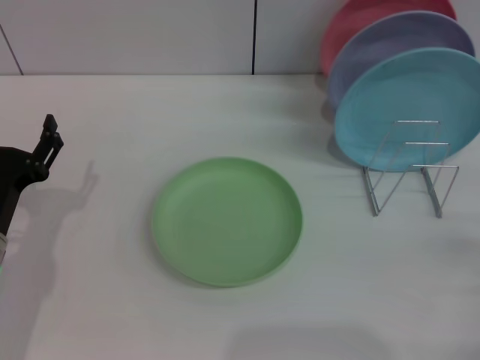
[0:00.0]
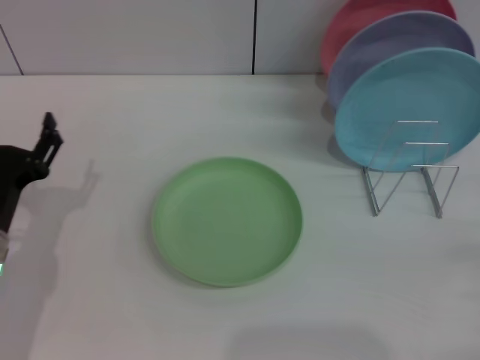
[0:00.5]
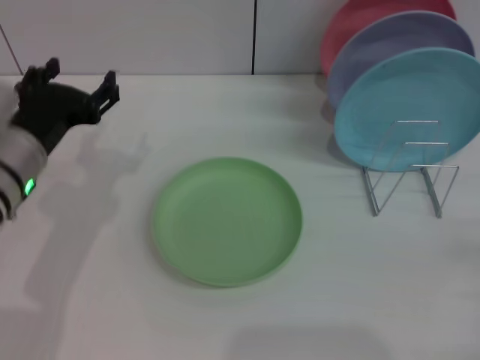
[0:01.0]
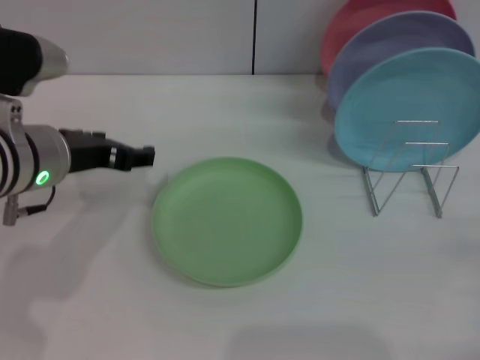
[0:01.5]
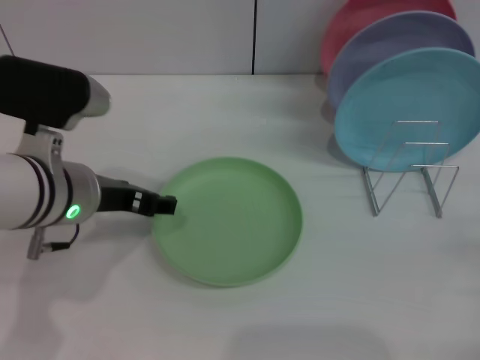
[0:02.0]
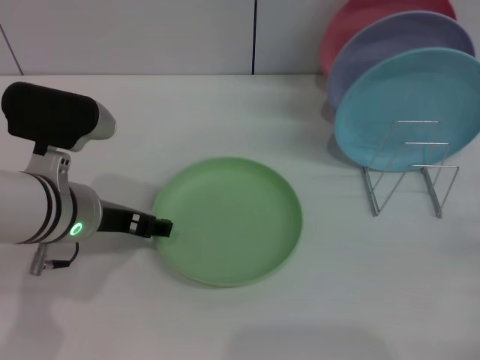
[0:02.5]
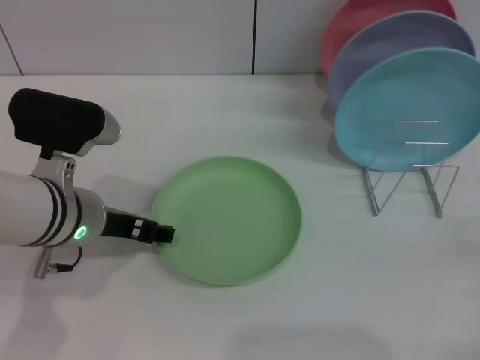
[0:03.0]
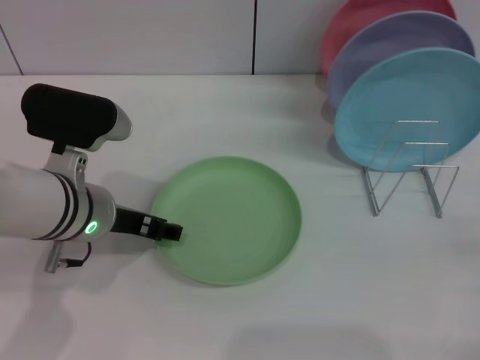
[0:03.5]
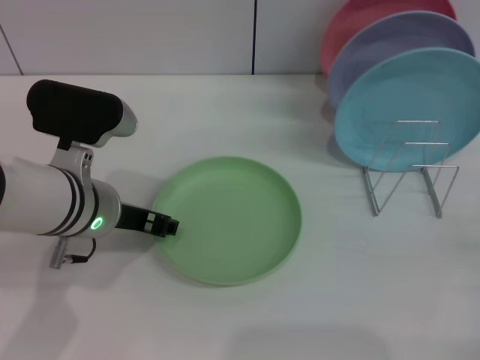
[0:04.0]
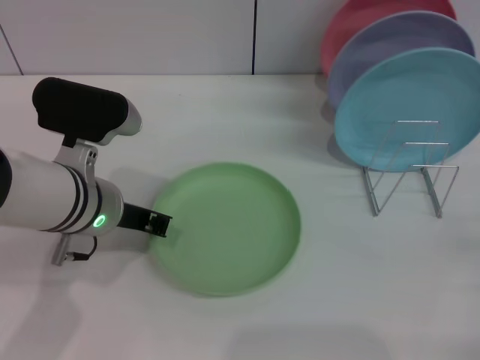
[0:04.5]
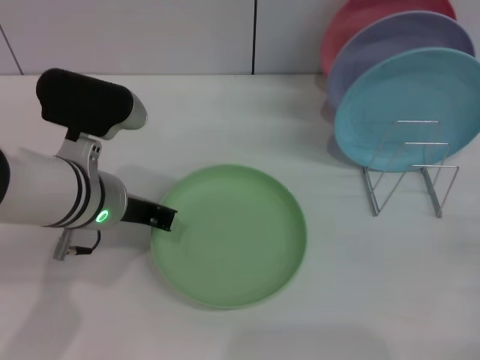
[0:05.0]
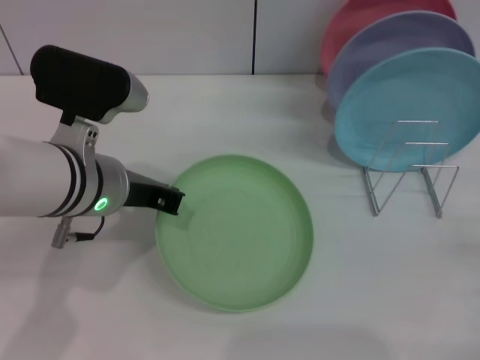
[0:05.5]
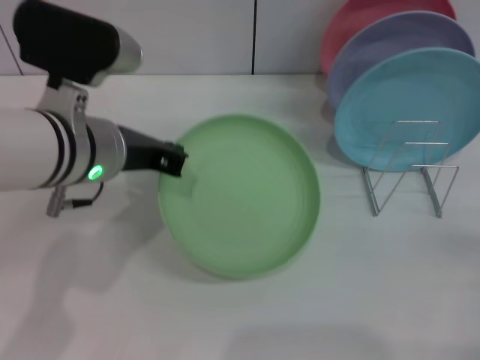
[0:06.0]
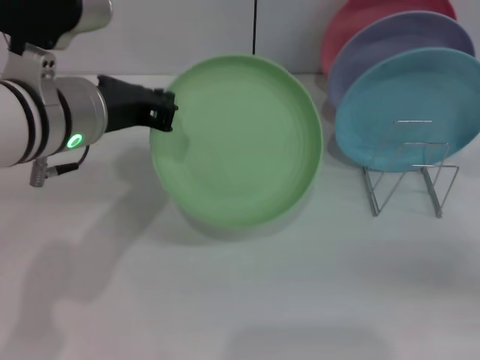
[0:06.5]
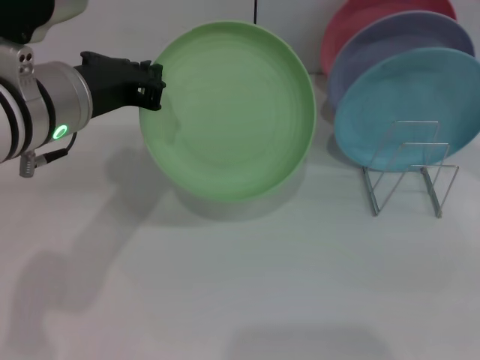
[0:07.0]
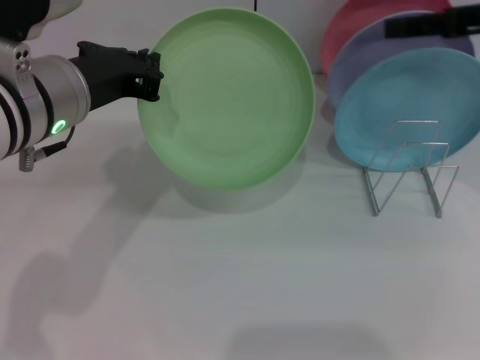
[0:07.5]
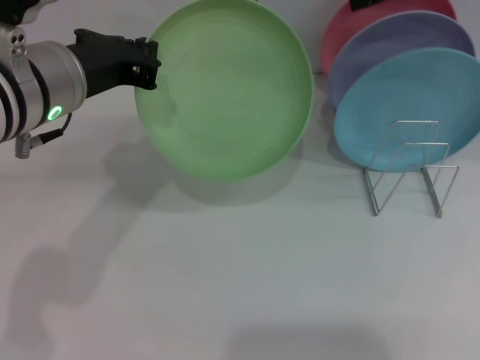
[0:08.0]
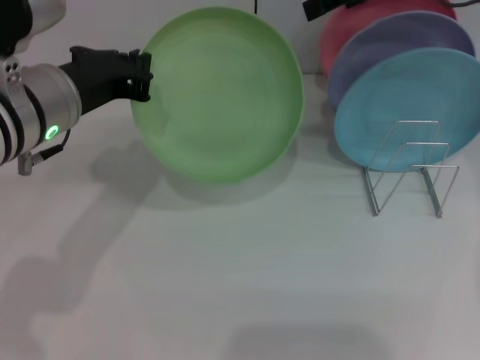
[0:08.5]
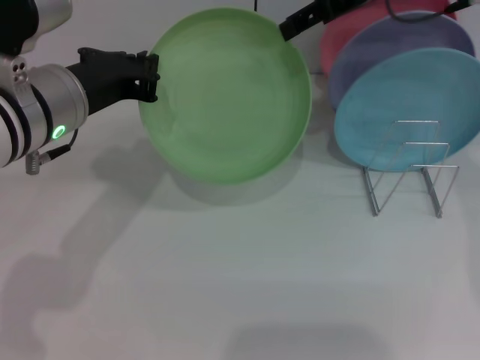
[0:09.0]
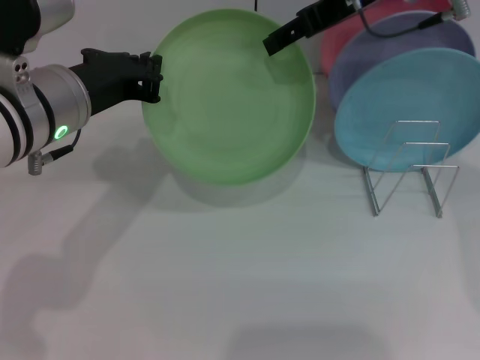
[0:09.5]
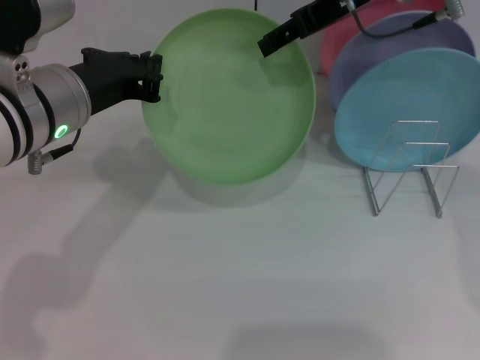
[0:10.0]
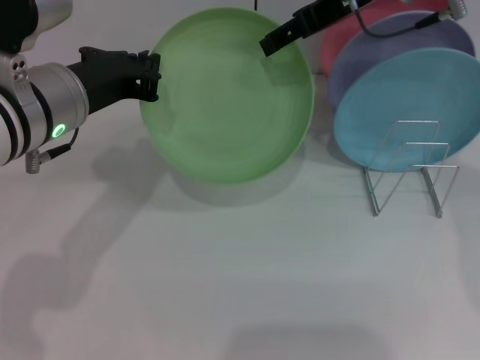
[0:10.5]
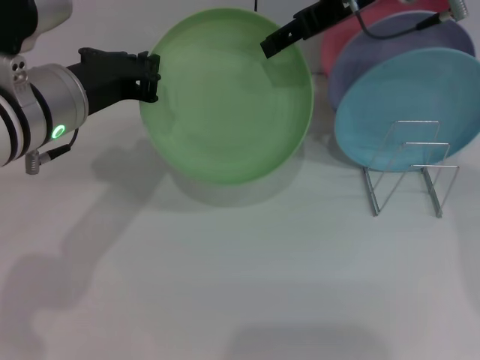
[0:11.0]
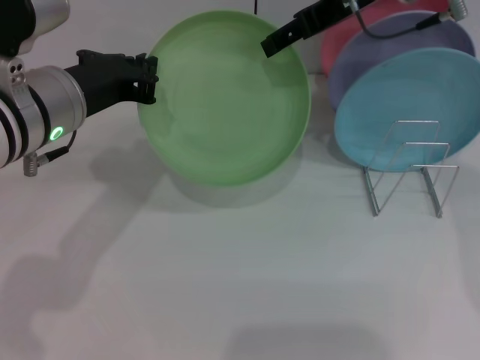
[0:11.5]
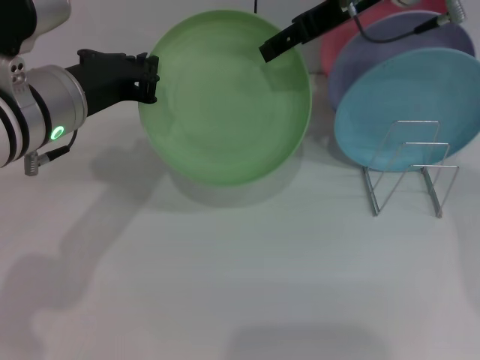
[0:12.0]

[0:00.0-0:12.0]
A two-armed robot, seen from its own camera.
Task of the whole recording: Grip the plate with one hand, pass it to the other, then set it on the shelf.
Step, 0:00.0 to 0:07.0: Pick up the plate with the left gripper.
0:00.0 to 0:02.0: The left gripper travels upward and to the right by approximately 15 cm.
0:02.0 to 0:04.0: There are only small adjustments of the grippers.
0:04.0 to 0:06.0: The left gripper is displaced upward by about 5 cm, and closes its fingers.
0:06.0 to 0:08.0: The right gripper goes some 40 cm upward, forward and to the left.
0:08.0 to 0:10.0: The right gripper is displaced to the left and downward by some 10 cm.
0:10.0 to 0:12.0: The two grippers keep their place.

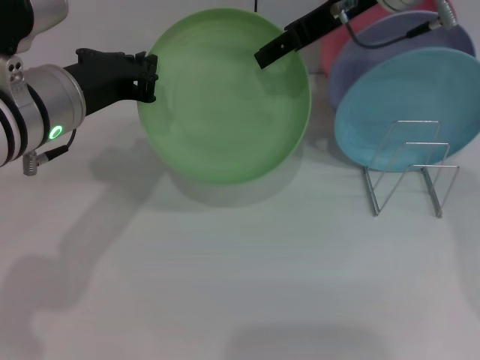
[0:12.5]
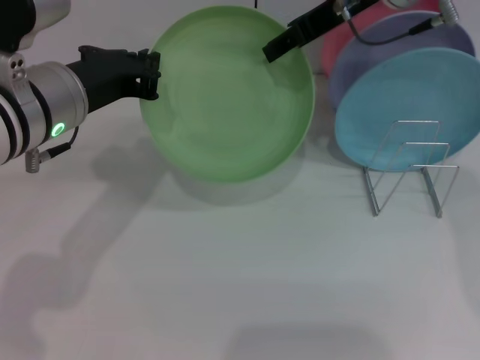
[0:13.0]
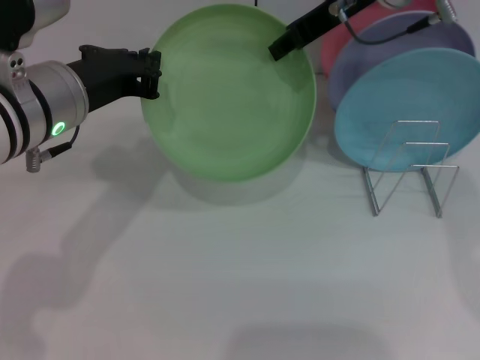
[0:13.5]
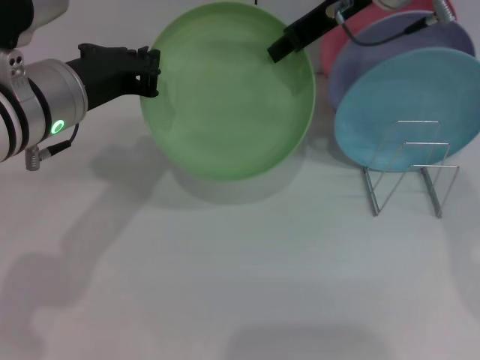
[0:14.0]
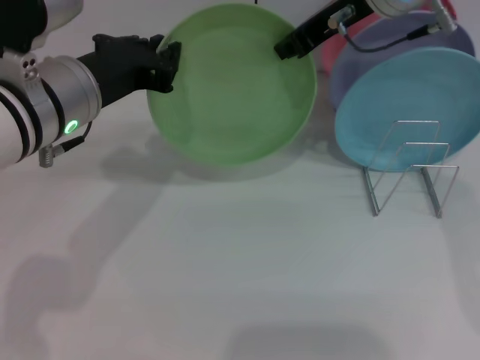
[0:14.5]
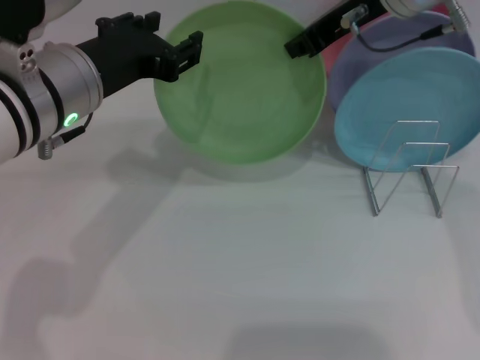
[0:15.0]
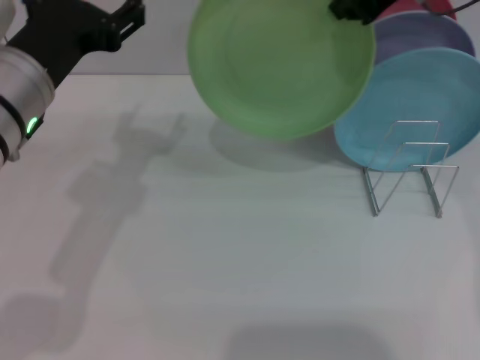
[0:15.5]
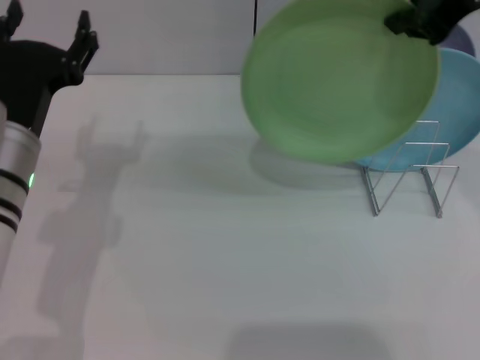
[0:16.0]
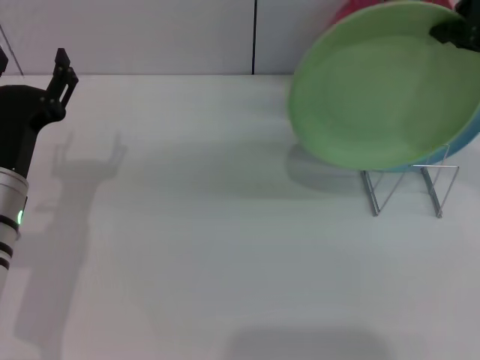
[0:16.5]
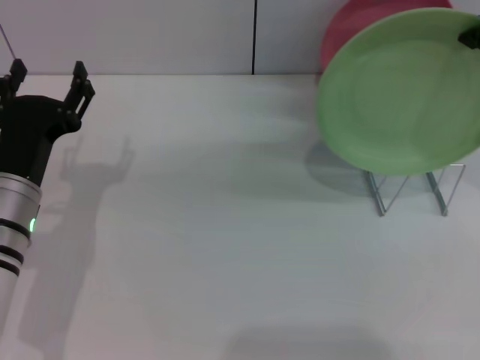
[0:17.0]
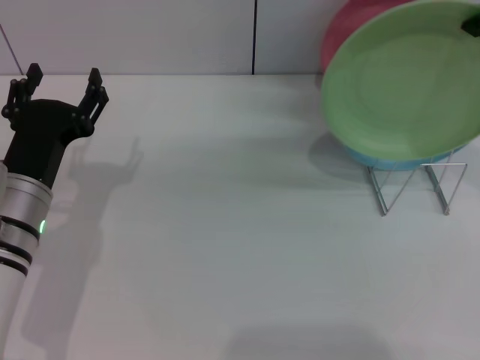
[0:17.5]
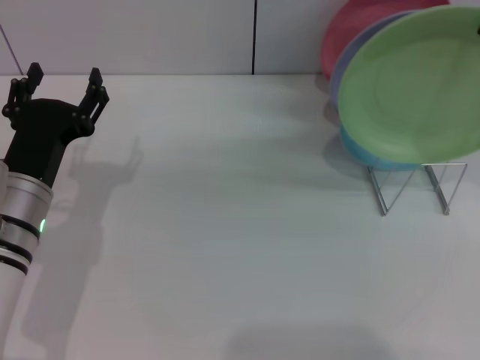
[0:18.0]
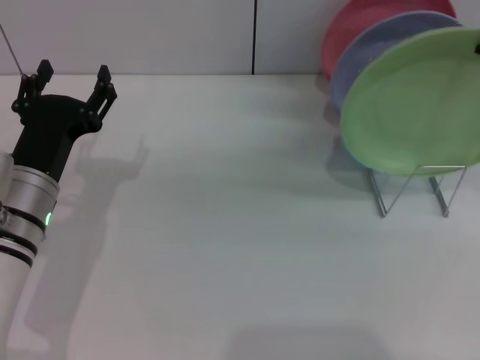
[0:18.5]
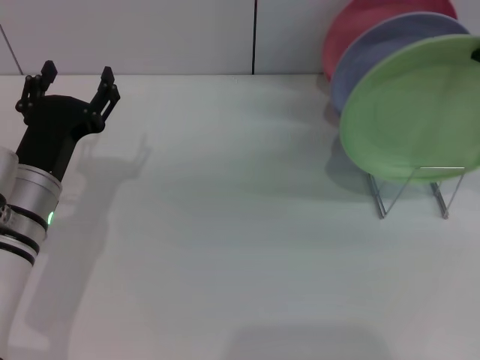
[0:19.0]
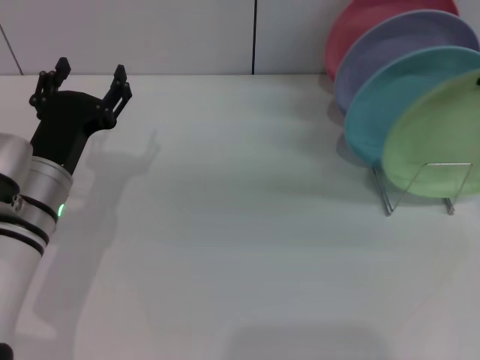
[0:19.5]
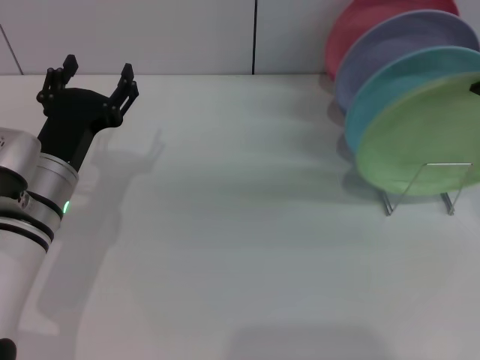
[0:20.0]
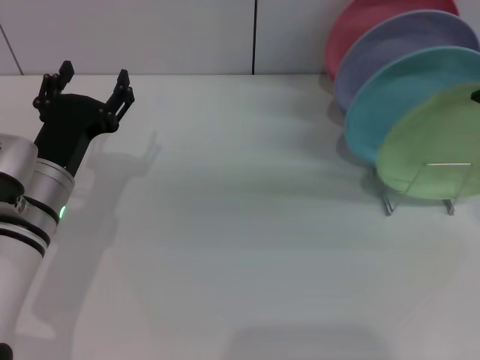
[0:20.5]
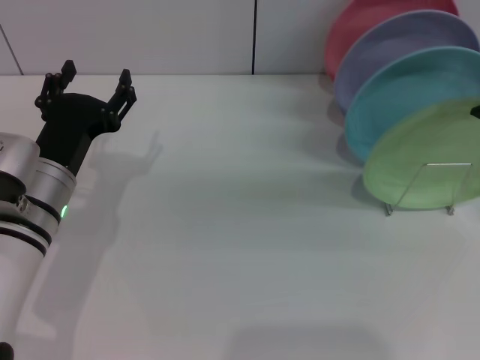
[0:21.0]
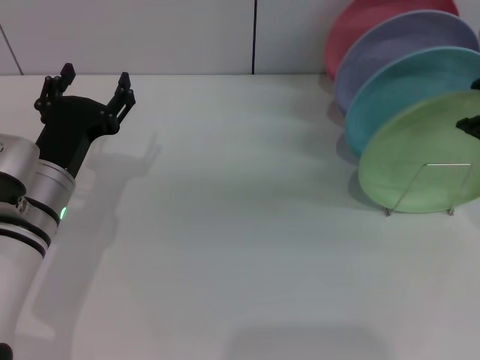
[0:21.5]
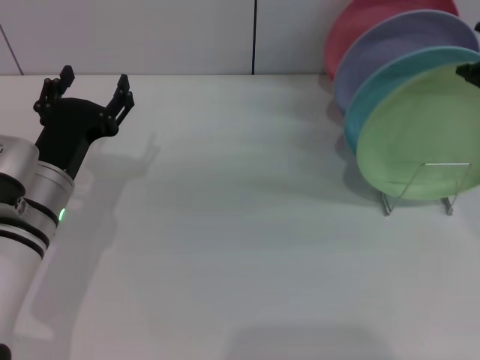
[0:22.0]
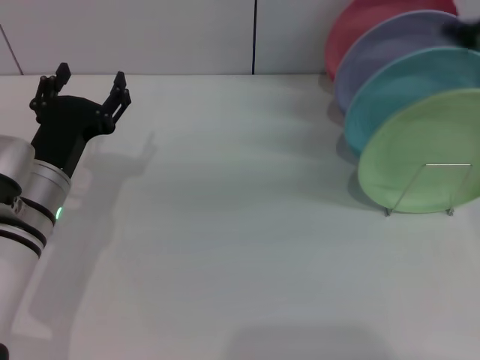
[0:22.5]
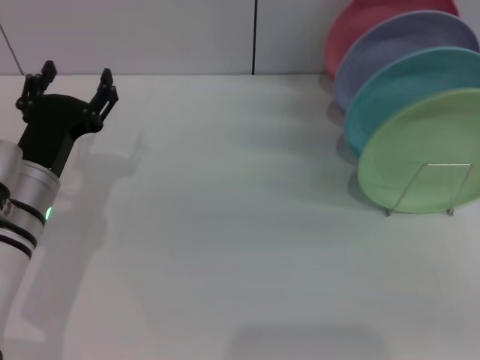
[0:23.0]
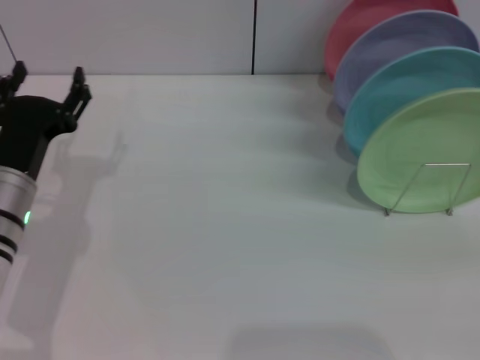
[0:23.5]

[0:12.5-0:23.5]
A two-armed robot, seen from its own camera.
Task of the whole recording: Grip the plate with one hand, pass it to the other, then set it on the shelf.
Step, 0:12.5 to 0:15.5: Pass the plate from the left gripper to the right gripper.
Step, 0:16.0 to 0:23.0: Place the plate on the shelf with the right gripper.
0:12.5 to 0:14.5: The right gripper closes up.
0:14.5 to 0:16.0: The left gripper moves downward, about 5 cm, and opens its fingers, while the right gripper is displaced to the right, backward and upward by some 10 cm.
0:16.0 to 0:18.0: The right gripper heads to the right, covering roughly 5 cm; the left gripper shifts roughly 5 cm downward.
0:18.0 to 0:20.0: The right gripper opens.
0:20.0 to 0:21.5: The grippers make only small movements.
0:21.5 to 0:23.5: The right gripper goes roughly 30 cm to the right, backward and downward.

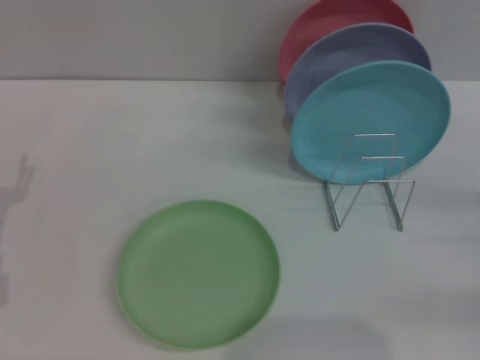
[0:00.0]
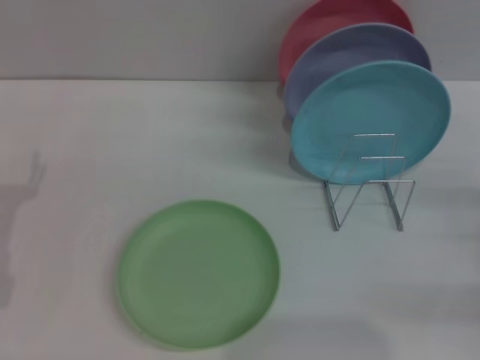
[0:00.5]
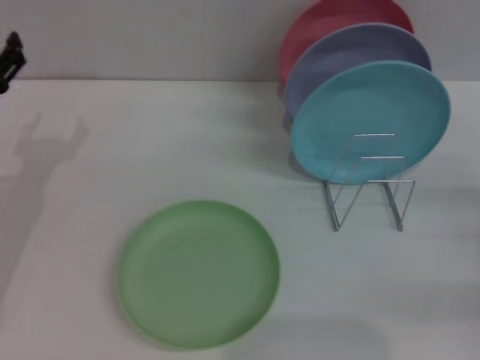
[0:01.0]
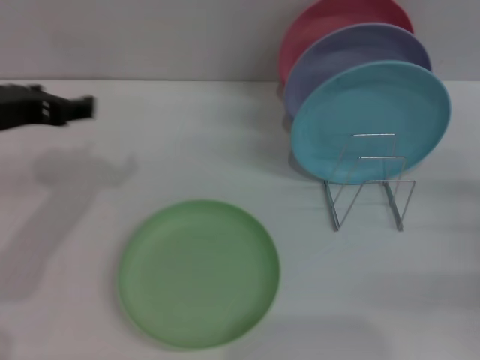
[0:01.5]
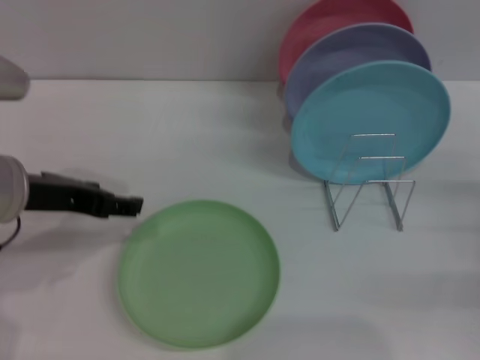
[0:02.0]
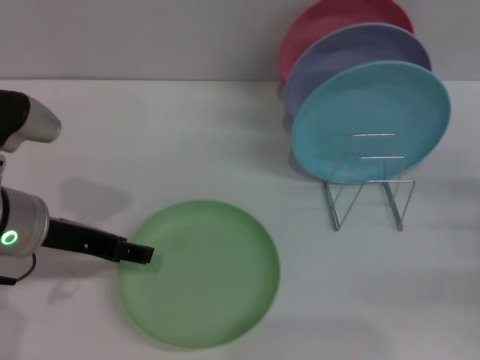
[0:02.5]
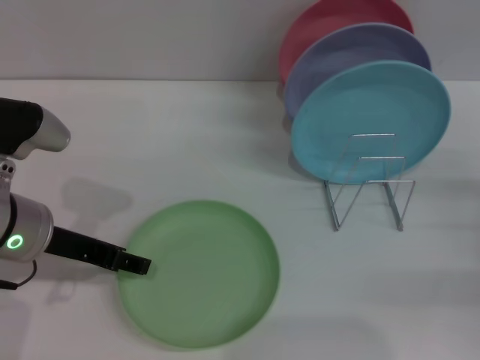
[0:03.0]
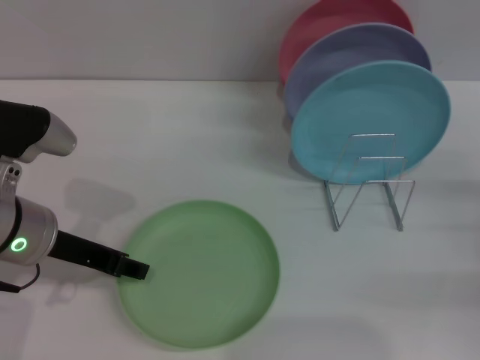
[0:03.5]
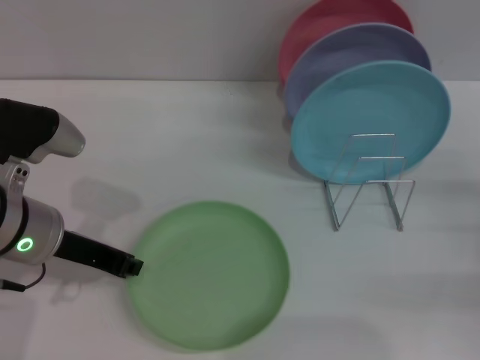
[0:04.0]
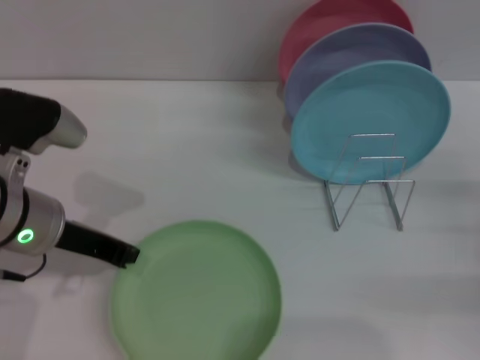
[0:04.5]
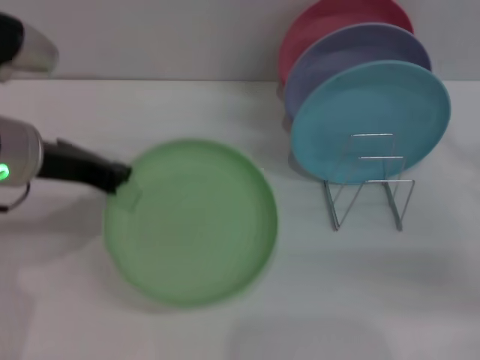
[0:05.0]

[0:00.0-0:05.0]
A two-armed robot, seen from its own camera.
Task of the whole recording: Grip the plate with one hand, pass it to the other, then set it on the shelf.
0:00.0 to 0:02.5: The left gripper heads to the right and upward, covering about 10 cm.
0:02.5 to 0:05.0: The left gripper travels upward by roughly 5 cm, and closes its fingers, while the right gripper travels upward and to the left by some 5 cm.
